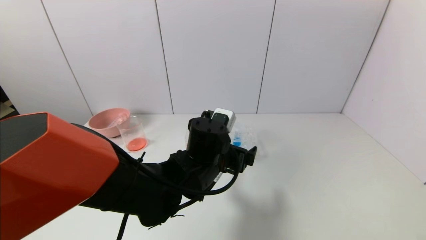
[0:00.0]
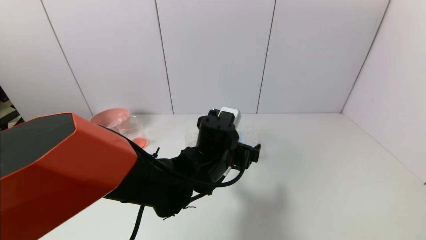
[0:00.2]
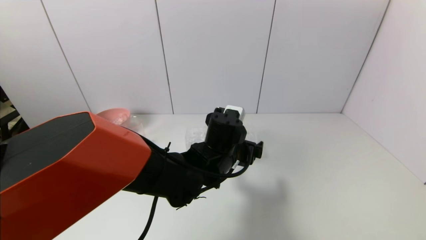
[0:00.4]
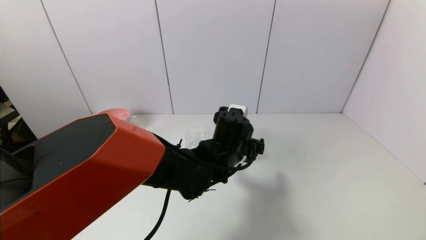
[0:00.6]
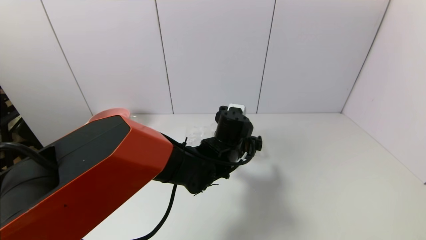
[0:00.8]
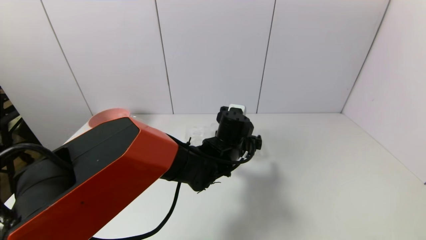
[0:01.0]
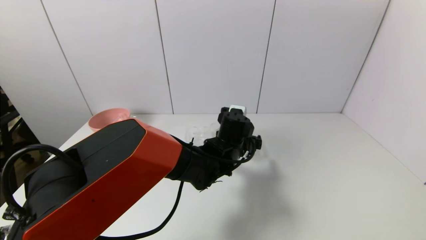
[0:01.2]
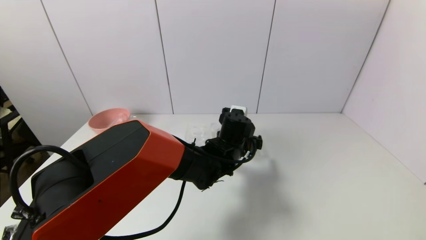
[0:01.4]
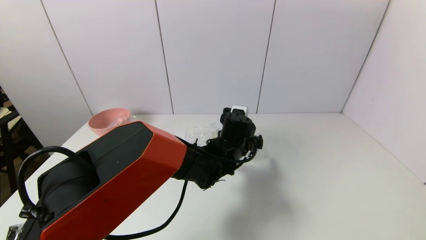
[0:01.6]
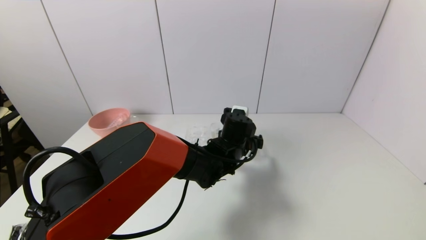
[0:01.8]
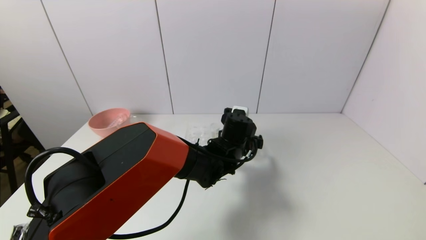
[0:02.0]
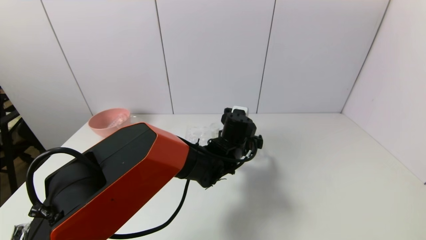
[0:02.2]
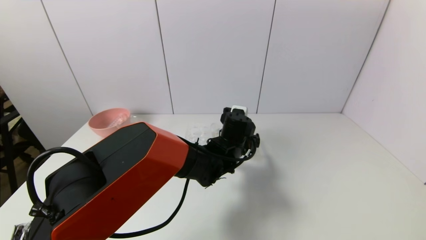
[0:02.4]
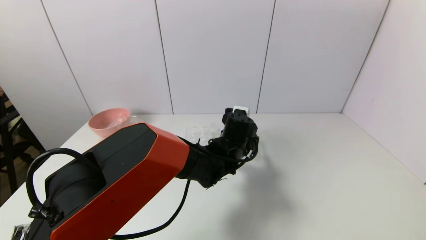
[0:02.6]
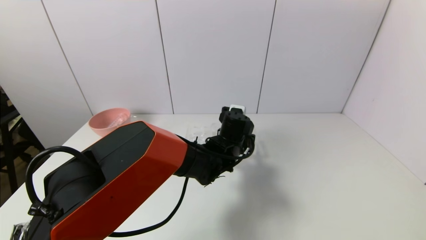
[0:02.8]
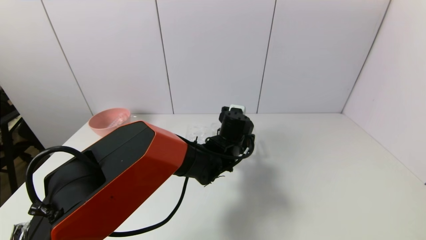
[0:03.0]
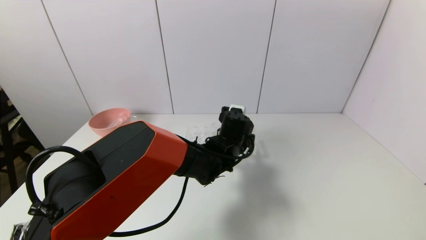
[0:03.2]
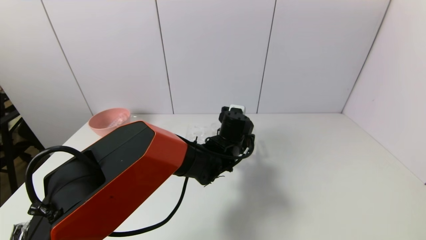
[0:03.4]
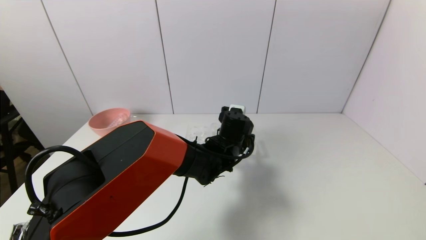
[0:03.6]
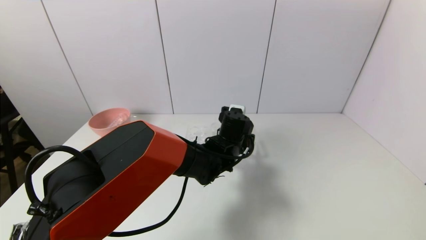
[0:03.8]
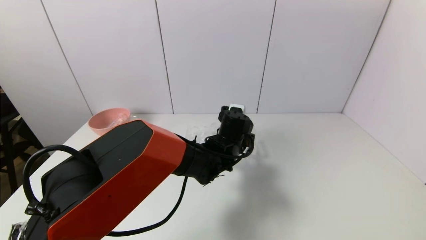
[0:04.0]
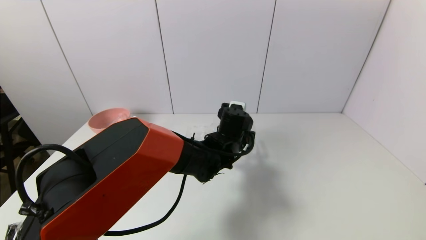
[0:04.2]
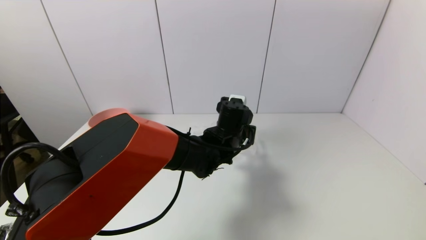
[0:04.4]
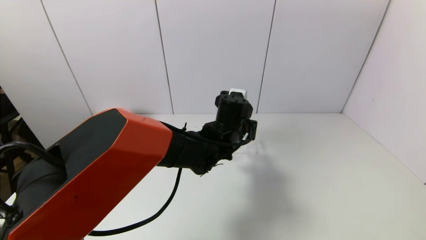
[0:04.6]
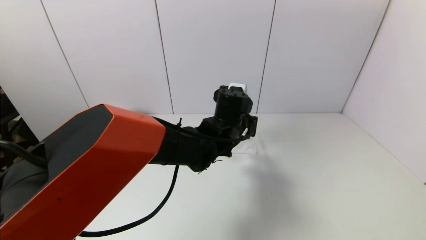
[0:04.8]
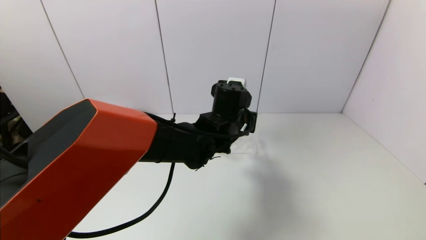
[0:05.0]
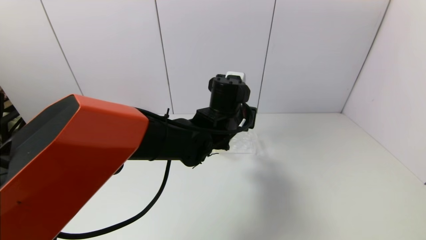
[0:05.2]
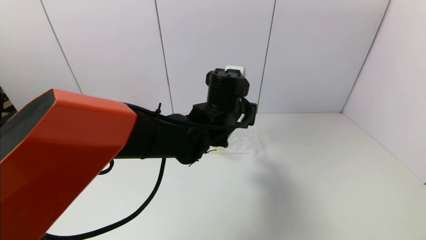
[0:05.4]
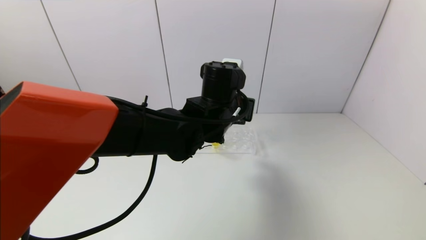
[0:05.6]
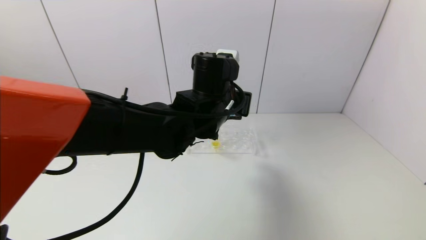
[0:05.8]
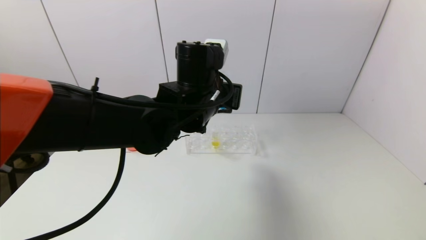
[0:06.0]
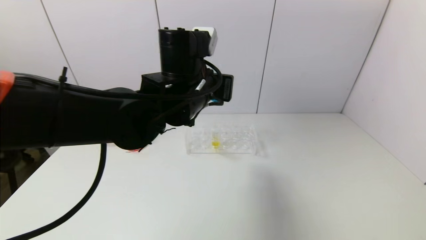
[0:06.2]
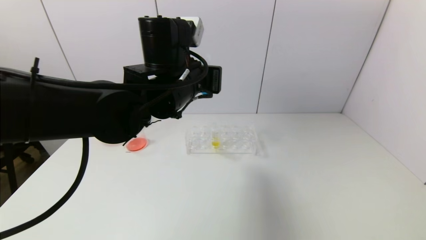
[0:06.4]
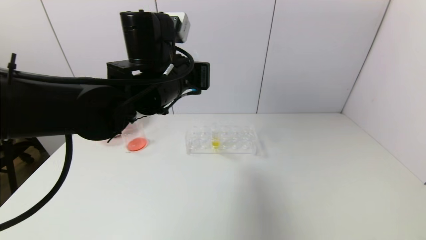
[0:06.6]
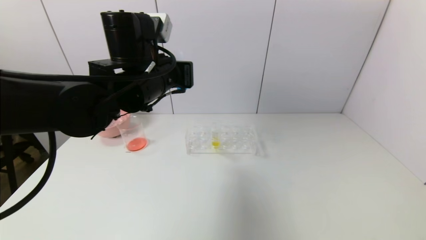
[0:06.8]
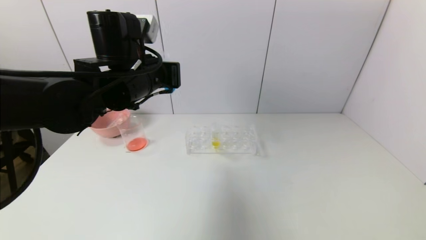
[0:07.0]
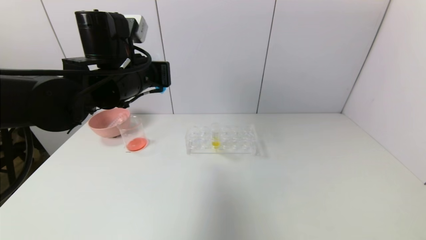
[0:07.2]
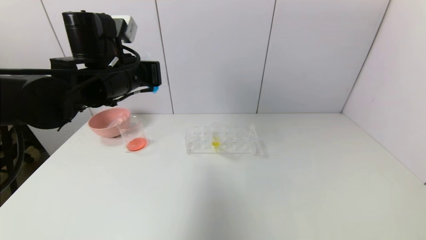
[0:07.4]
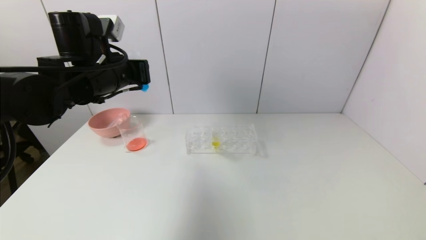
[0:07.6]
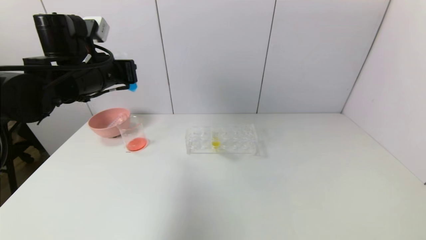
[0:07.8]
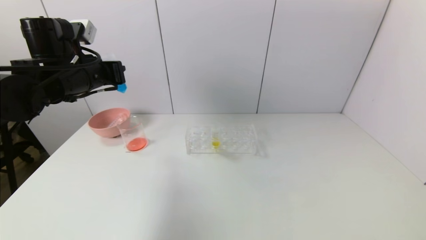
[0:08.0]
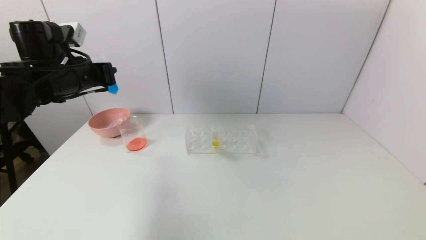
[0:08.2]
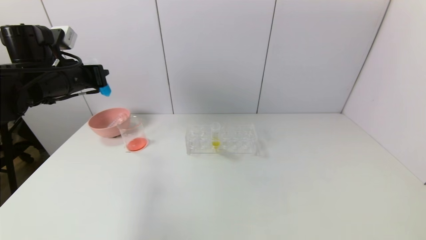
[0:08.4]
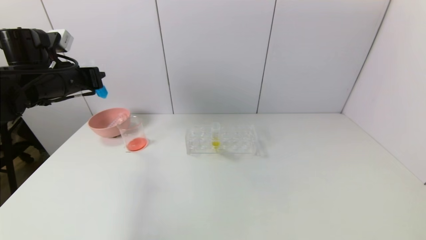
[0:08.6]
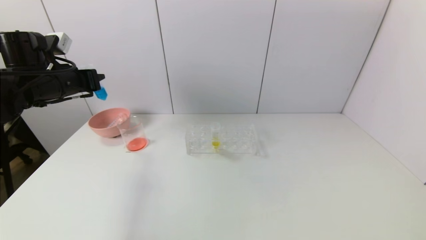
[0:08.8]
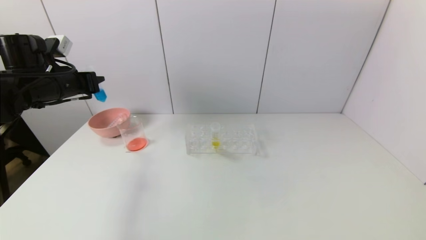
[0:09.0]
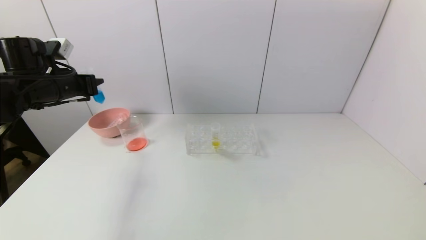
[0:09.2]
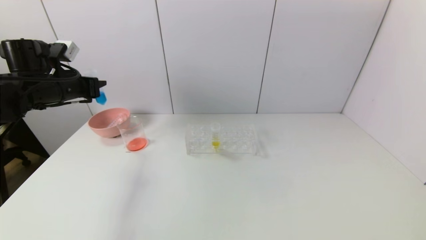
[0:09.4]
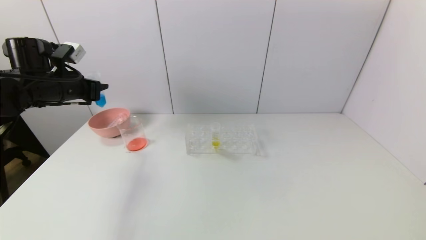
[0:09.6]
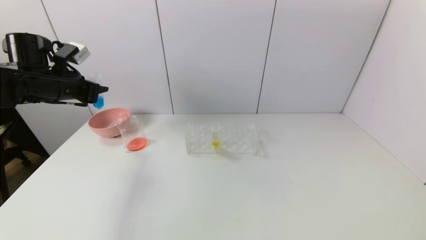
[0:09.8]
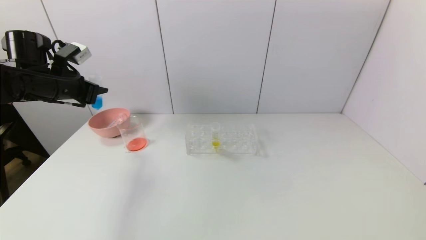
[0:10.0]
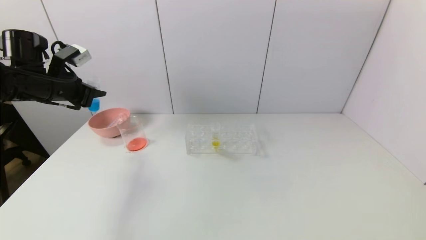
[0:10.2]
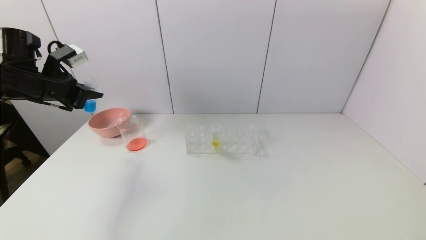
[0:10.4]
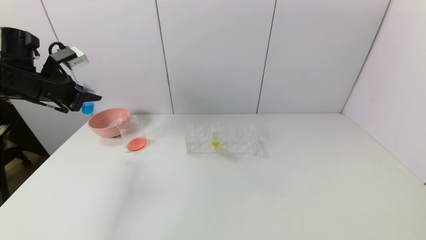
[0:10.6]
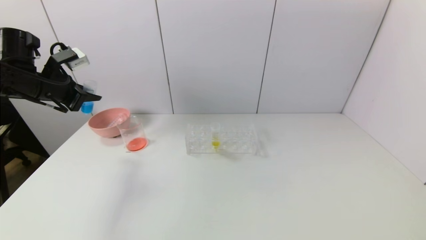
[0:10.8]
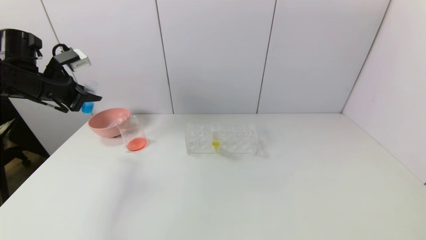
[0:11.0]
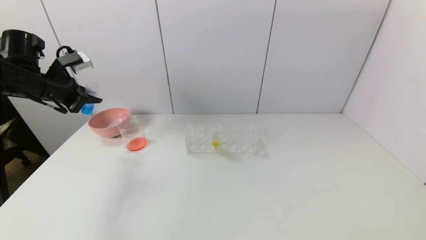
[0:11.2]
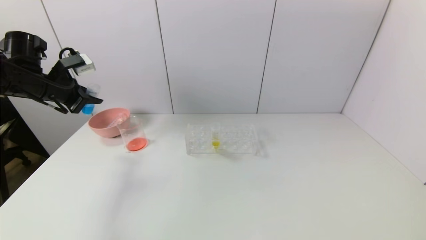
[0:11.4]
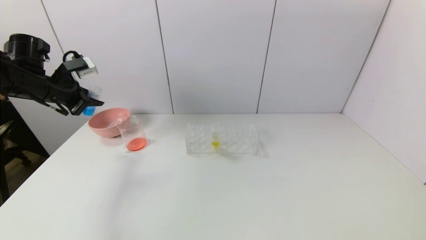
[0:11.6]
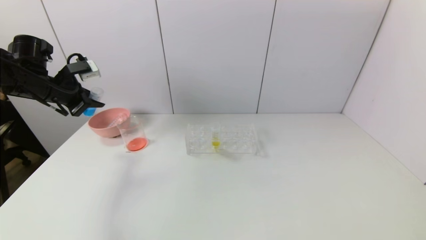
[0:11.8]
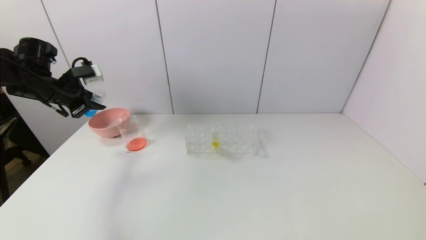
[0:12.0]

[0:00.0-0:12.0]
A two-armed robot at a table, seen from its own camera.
Task of the whole recording: pick up the test tube with red pigment and the test tube with blue pigment by grippers and pour them into the container.
Step, 0.0 to 3.4 s: Grasp the blue reagent with the left gripper.
0.0 to 1.6 s: The left gripper goes some 10 cm forward and to the right.
1.6 to 3.0 s: The left gripper closes.
3.0 to 4.4 s: There are only small adjustments of the grippers.
4.4 to 6.0 s: The left gripper moves upward and to the left, about 15 cm.
6.0 to 7.6 s: The left gripper heads to the left, covering roughly 15 cm.
7.6 to 9.0 s: The left gripper travels to the left by some 15 cm.

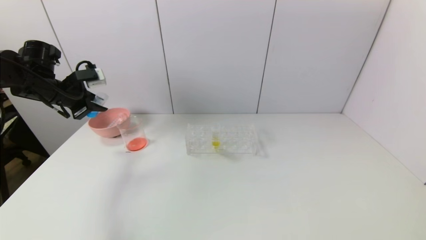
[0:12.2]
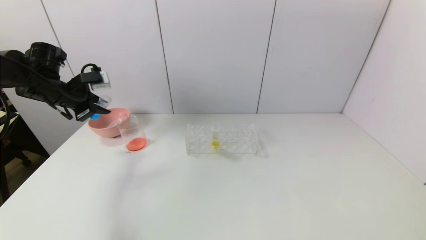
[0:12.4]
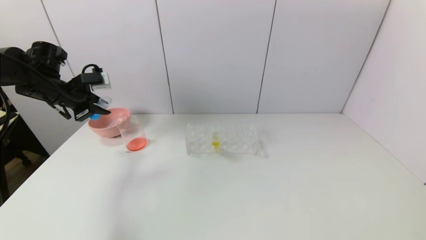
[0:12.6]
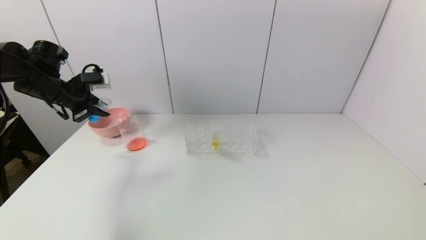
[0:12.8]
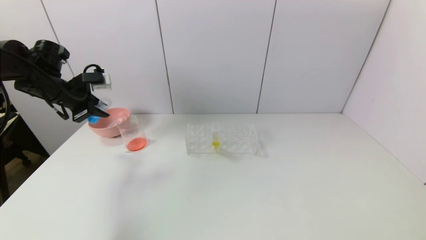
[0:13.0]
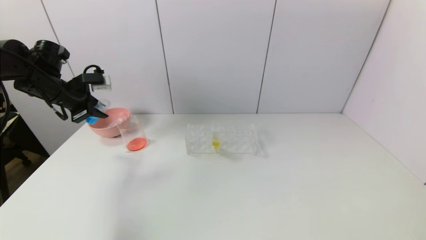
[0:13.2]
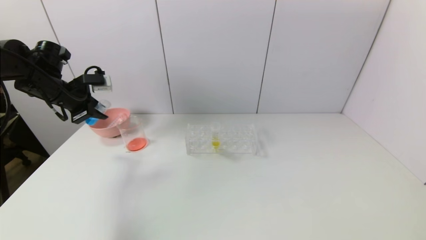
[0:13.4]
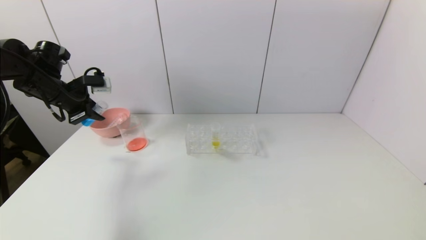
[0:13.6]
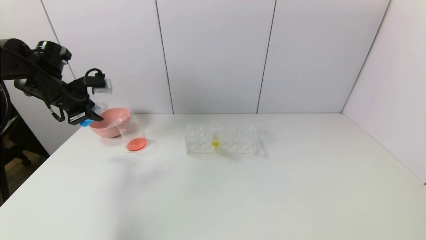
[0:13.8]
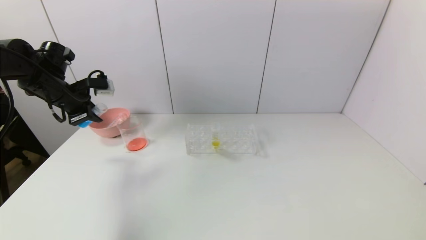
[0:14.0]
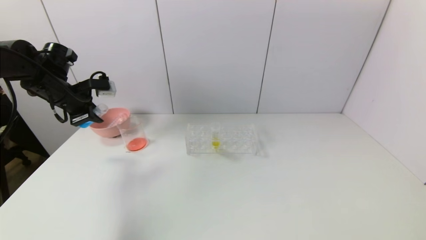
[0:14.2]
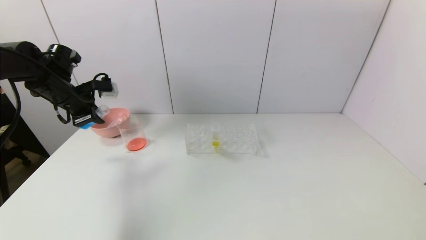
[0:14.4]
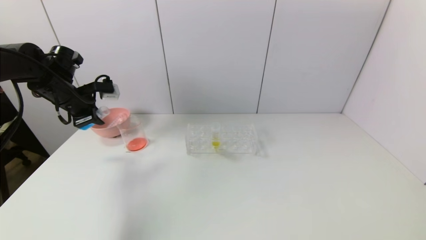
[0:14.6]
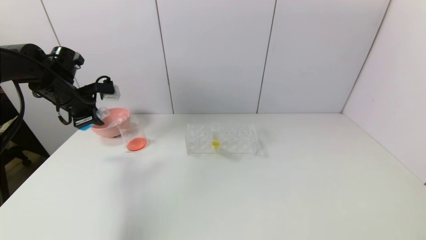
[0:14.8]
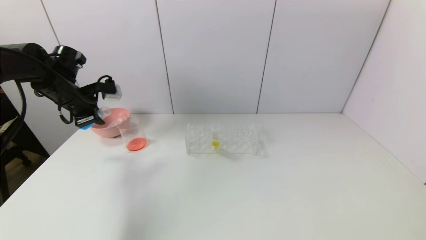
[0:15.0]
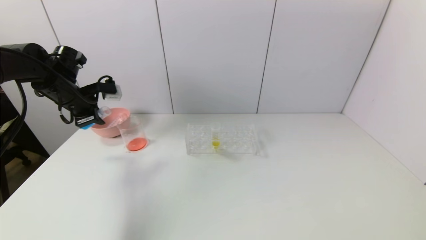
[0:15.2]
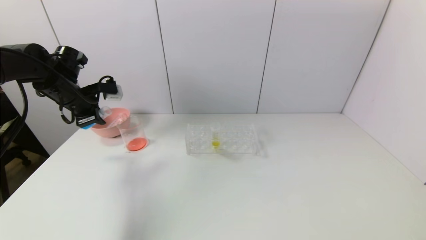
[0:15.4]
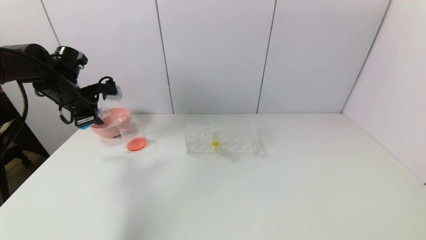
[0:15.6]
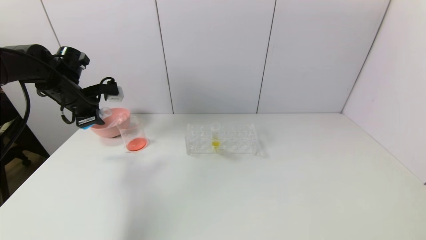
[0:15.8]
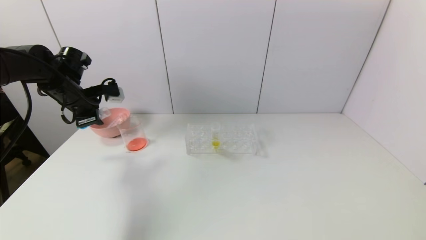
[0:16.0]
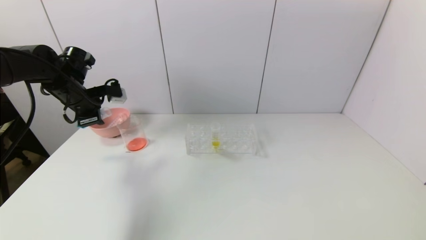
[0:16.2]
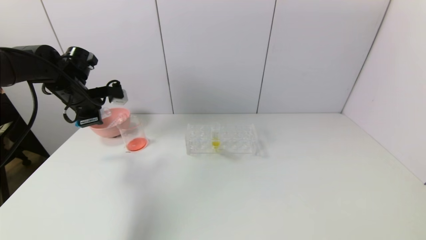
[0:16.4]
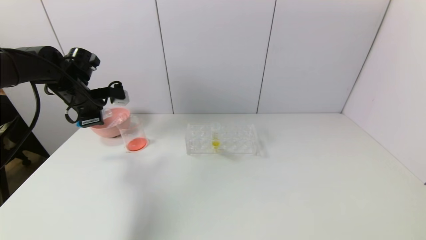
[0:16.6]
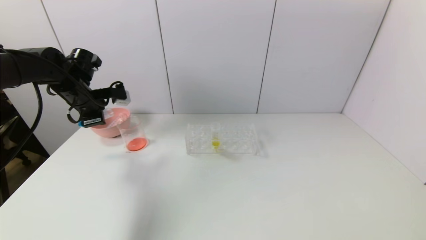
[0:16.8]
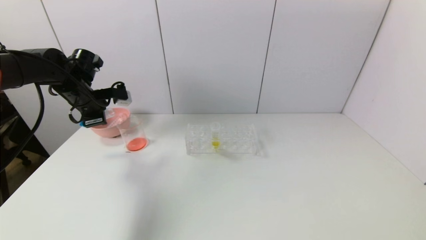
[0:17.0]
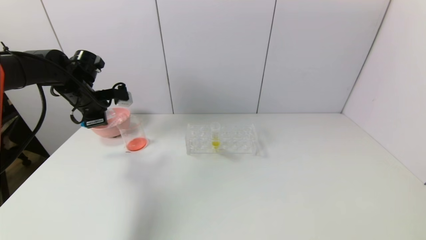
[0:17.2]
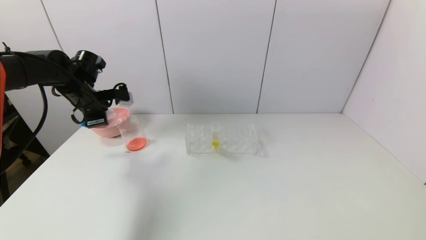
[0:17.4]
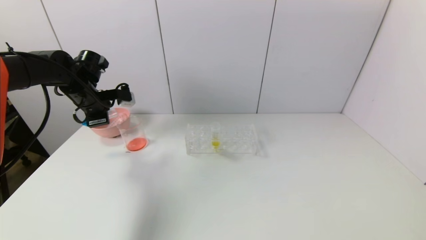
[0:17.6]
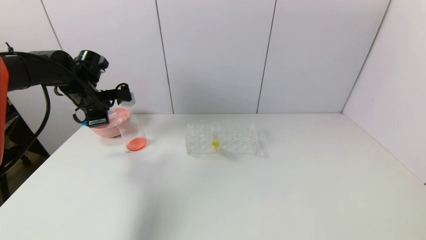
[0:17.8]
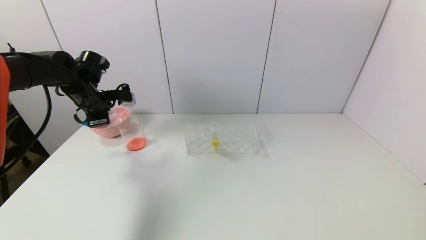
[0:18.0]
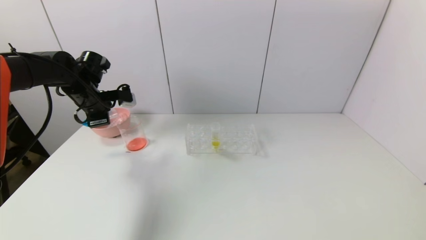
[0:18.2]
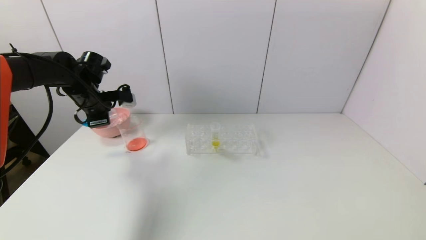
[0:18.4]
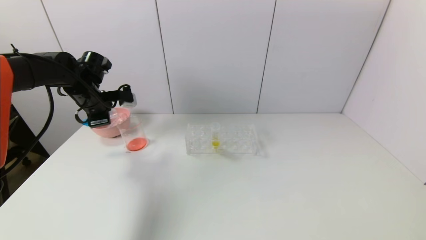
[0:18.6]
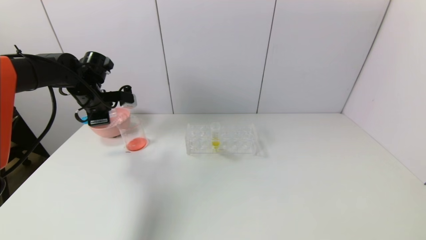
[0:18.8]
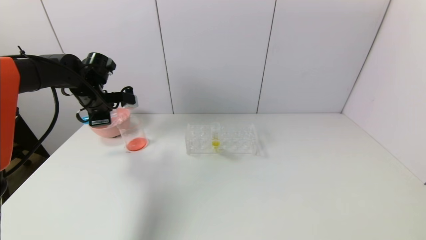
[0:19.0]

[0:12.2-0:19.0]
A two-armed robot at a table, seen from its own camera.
Task of the whole recording: pick up the test tube with red pigment and the test tube with blue pigment by grippers and pour them into the container.
12.2 to 13.6 s: There are only small adjustments of the grippers.
13.6 to 16.2 s: The grippers stay close to where they were, moving slightly.
16.2 to 19.0 s: The grippers stay close to where they were, moving slightly.
